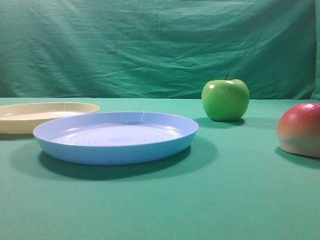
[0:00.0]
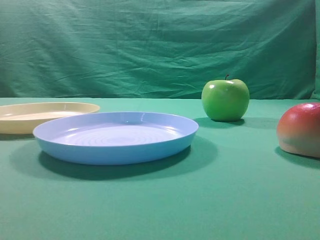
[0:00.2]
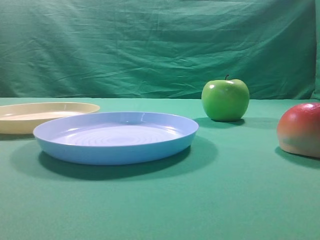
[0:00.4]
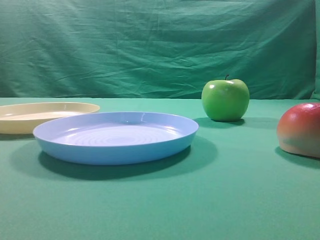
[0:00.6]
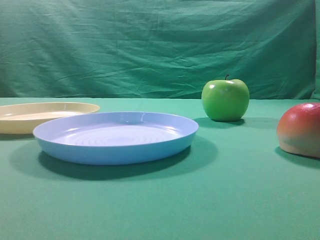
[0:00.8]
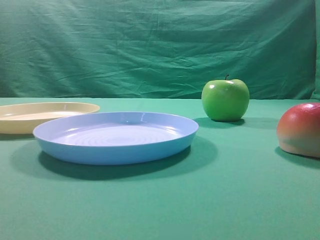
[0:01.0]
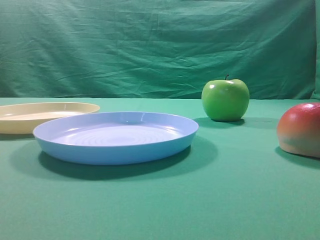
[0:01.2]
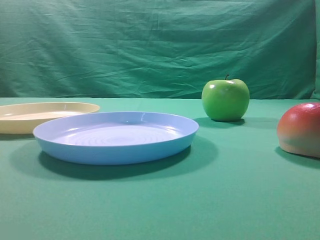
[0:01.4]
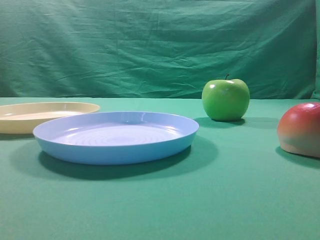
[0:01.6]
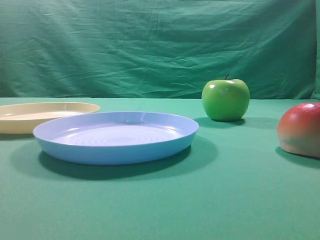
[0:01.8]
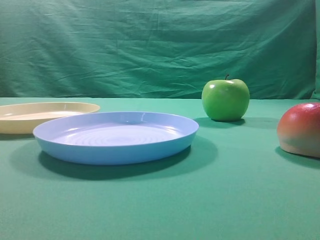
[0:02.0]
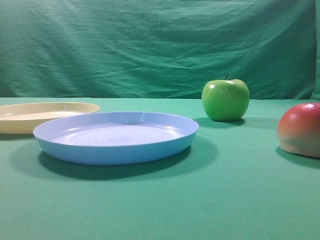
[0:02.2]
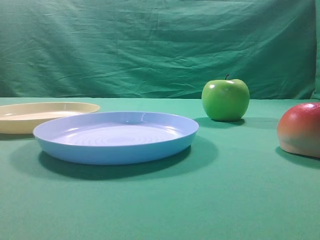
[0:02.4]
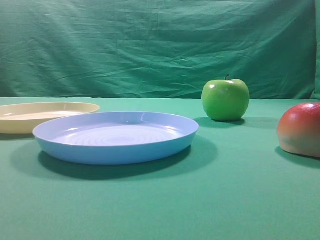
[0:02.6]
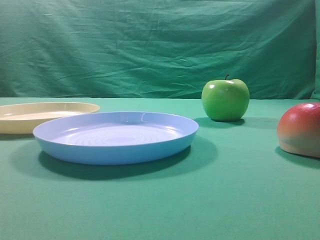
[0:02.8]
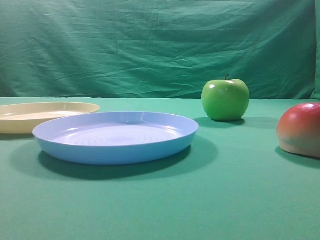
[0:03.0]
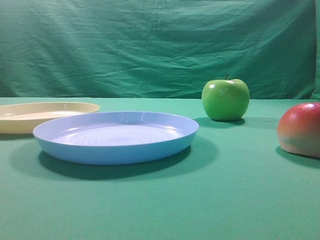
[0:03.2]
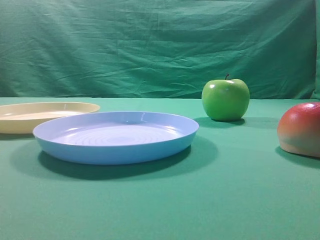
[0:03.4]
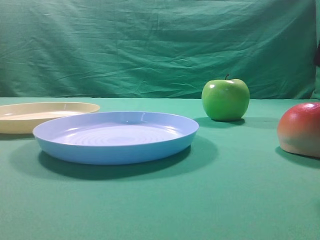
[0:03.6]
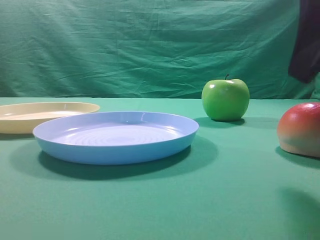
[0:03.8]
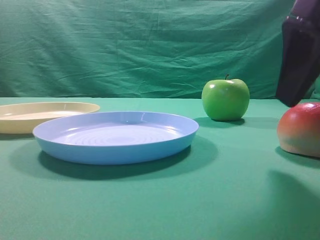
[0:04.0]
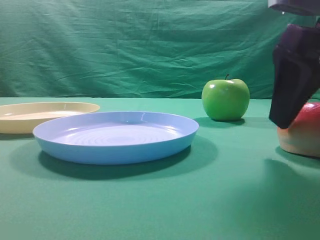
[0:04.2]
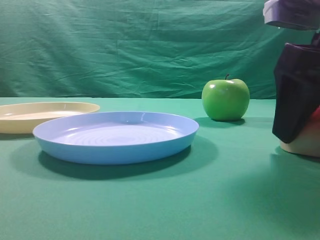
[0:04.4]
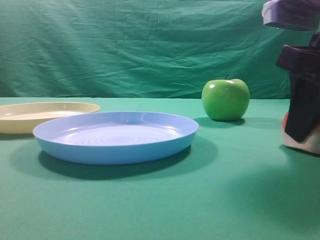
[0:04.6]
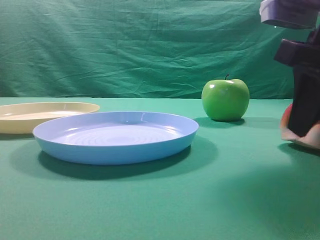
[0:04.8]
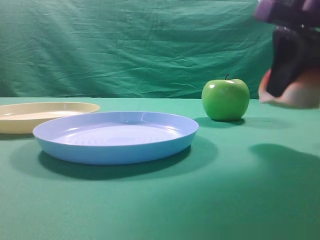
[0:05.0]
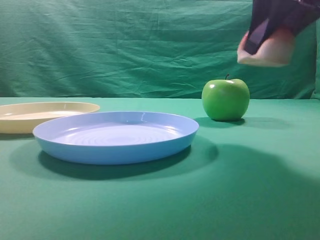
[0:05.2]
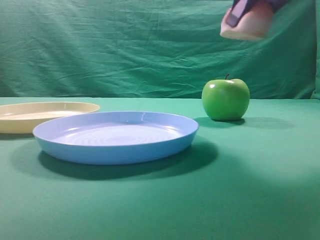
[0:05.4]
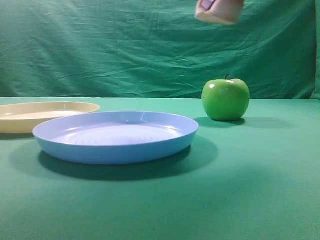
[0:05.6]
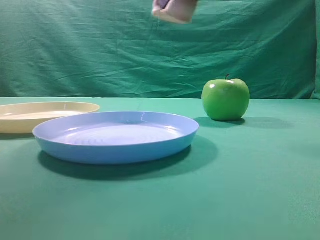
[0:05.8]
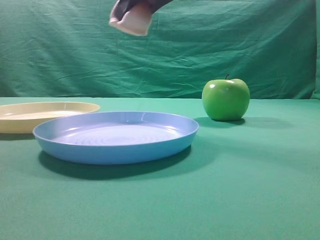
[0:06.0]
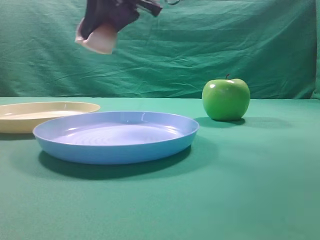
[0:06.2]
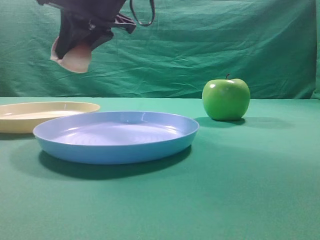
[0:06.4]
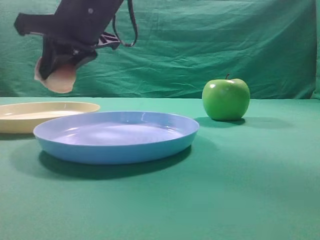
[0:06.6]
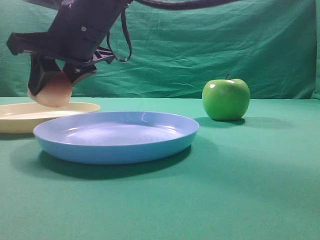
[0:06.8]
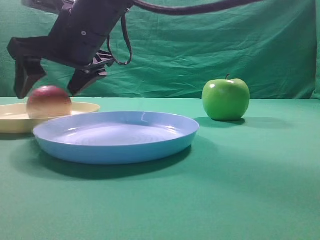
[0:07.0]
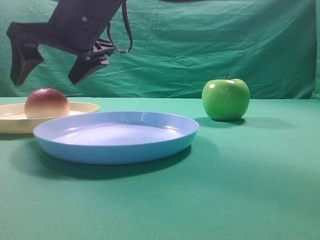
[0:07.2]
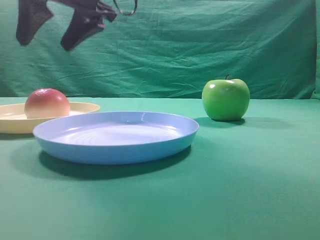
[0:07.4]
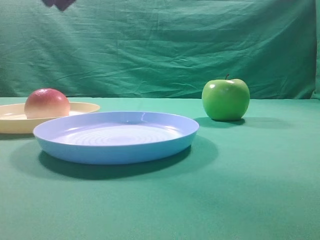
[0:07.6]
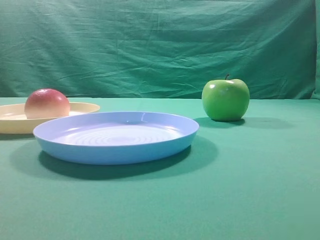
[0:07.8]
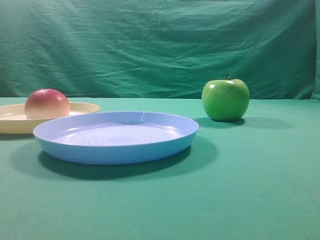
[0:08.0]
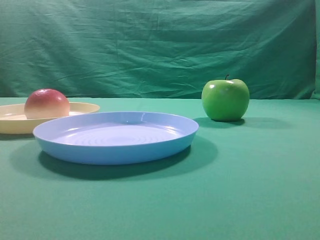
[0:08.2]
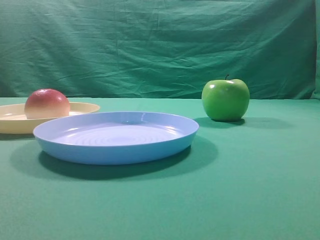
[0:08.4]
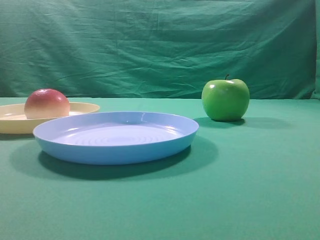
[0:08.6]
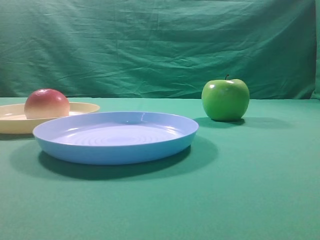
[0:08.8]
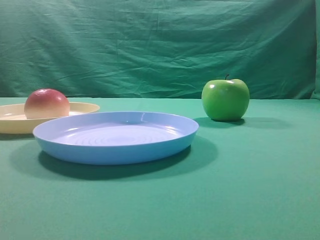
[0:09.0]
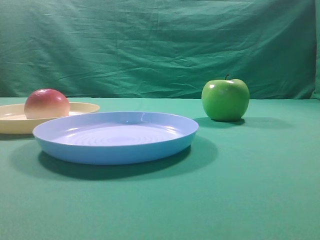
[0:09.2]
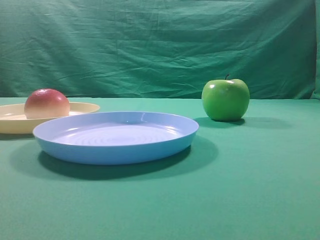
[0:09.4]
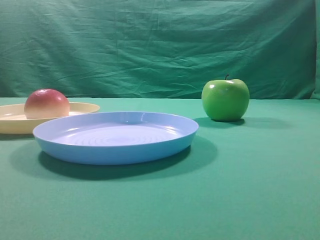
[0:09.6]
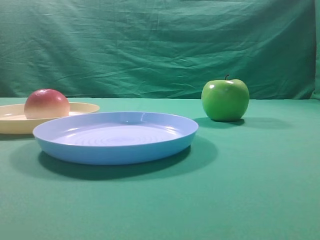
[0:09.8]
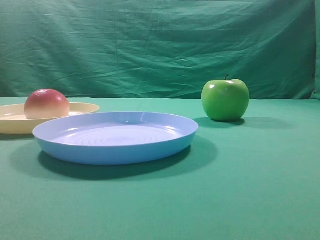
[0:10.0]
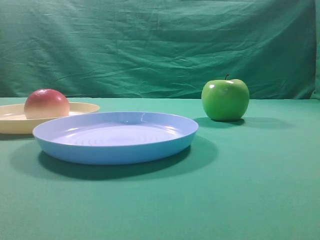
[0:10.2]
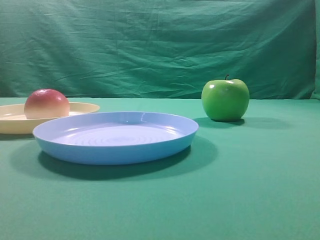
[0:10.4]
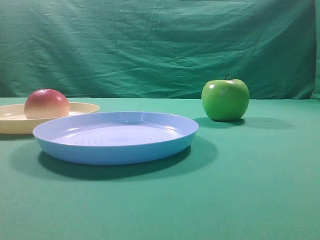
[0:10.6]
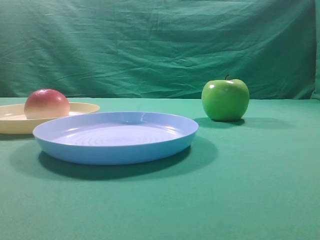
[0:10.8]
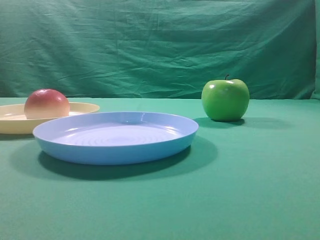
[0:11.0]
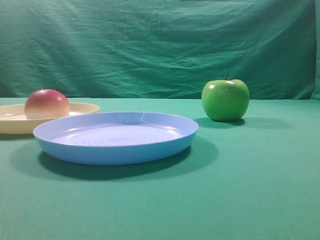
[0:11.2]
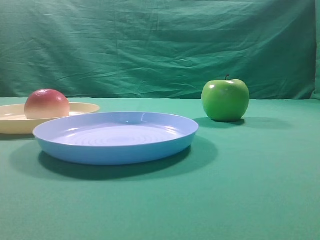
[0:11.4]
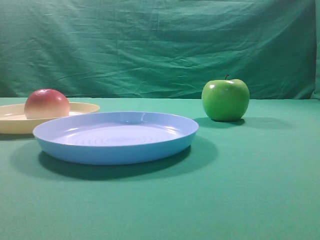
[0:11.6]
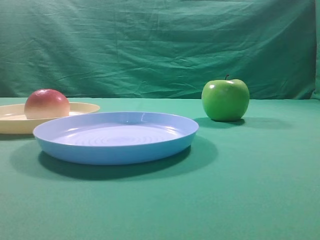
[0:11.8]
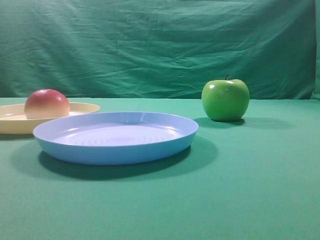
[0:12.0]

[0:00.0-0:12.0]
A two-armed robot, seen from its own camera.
Step, 0:05.2 to 0:07.2: Place the picked object on the yellow plate.

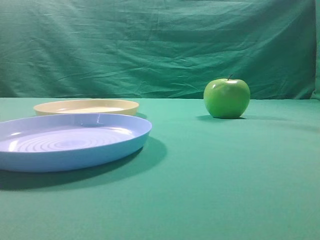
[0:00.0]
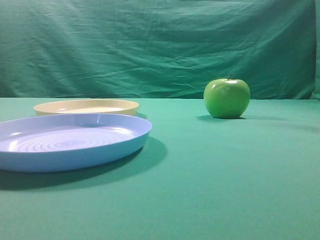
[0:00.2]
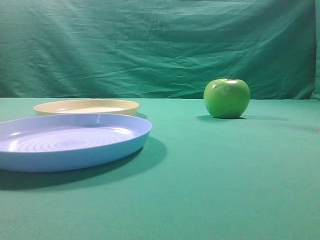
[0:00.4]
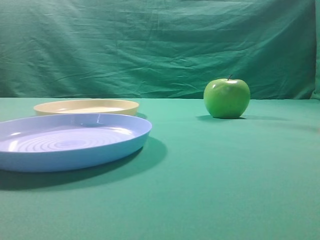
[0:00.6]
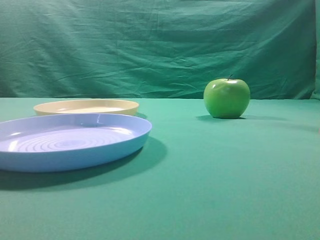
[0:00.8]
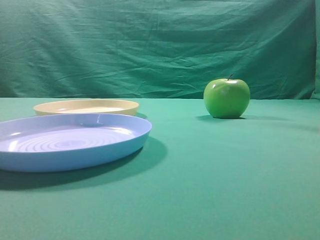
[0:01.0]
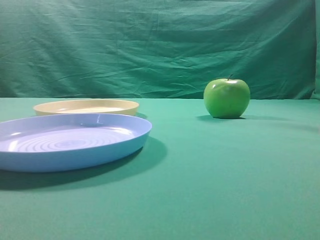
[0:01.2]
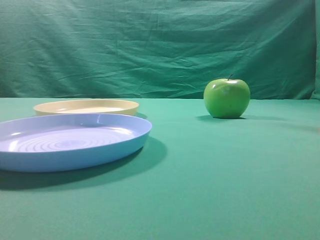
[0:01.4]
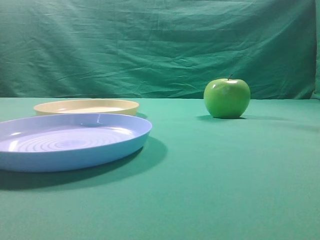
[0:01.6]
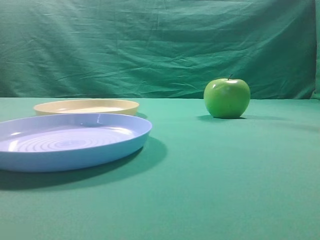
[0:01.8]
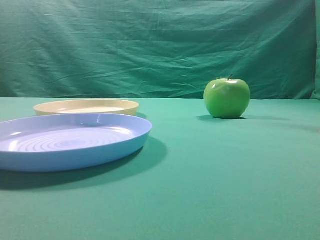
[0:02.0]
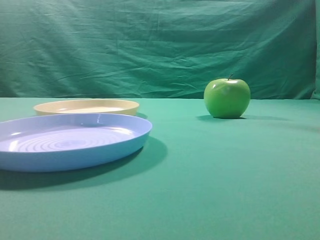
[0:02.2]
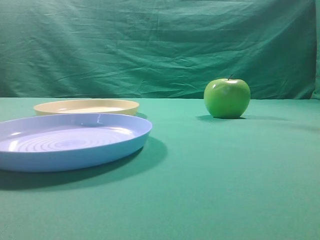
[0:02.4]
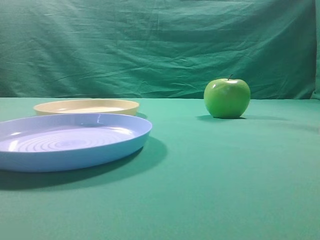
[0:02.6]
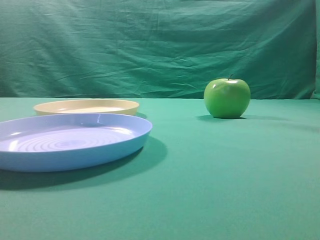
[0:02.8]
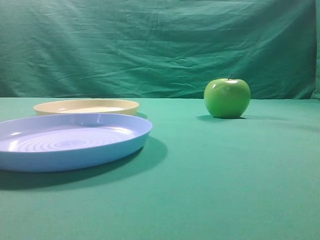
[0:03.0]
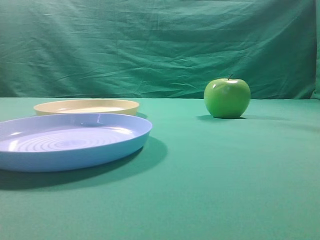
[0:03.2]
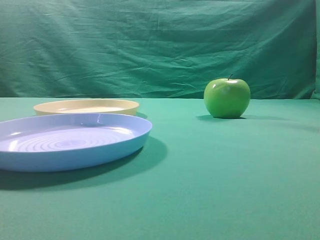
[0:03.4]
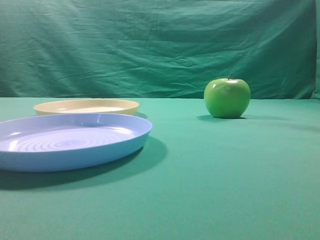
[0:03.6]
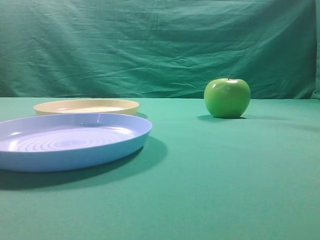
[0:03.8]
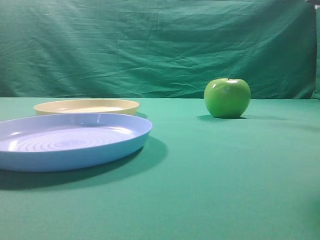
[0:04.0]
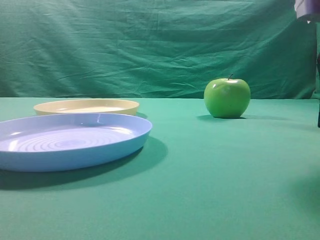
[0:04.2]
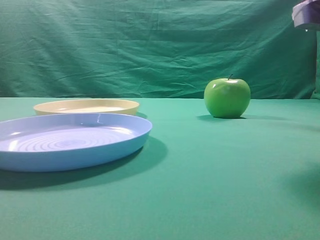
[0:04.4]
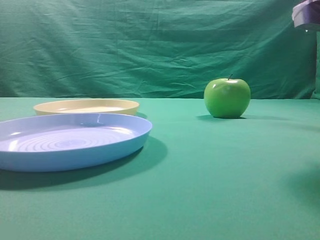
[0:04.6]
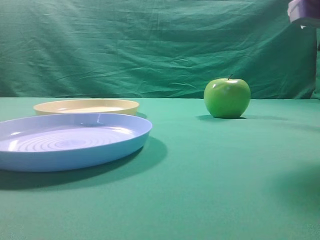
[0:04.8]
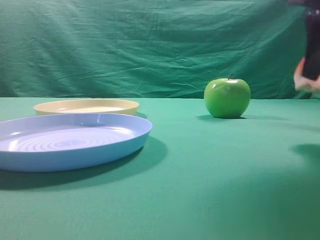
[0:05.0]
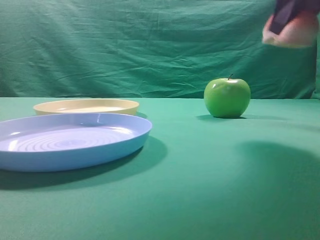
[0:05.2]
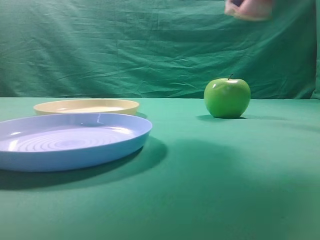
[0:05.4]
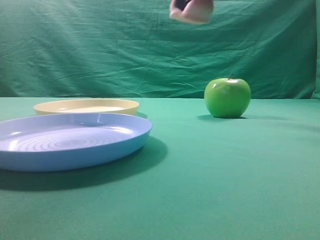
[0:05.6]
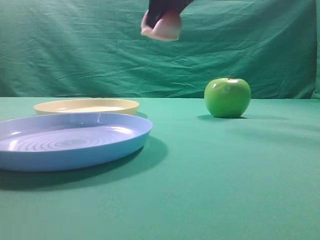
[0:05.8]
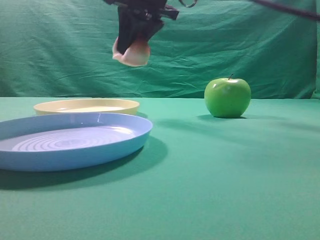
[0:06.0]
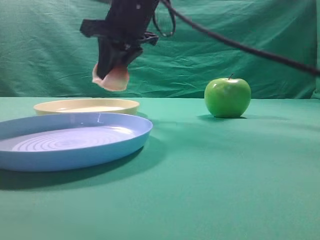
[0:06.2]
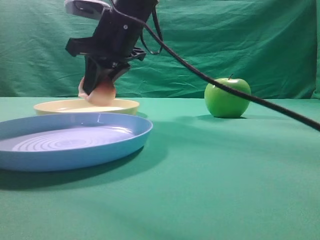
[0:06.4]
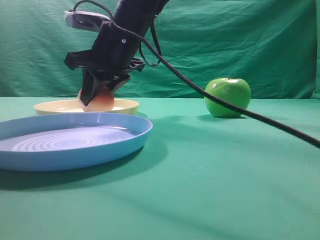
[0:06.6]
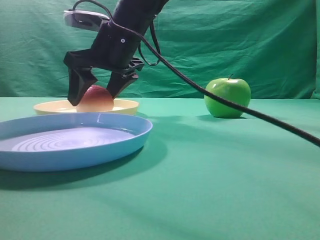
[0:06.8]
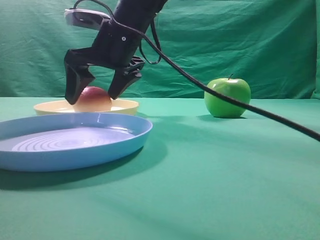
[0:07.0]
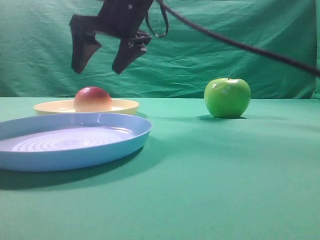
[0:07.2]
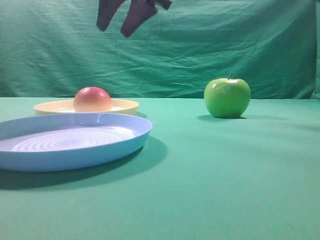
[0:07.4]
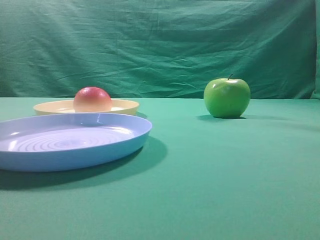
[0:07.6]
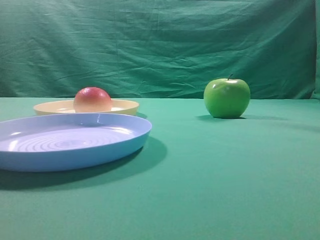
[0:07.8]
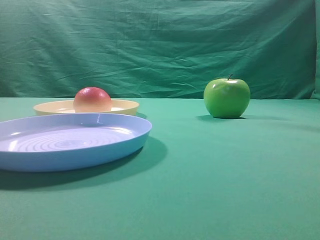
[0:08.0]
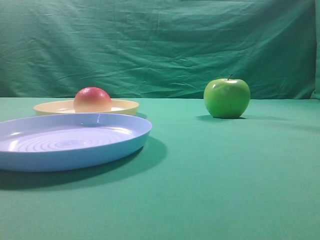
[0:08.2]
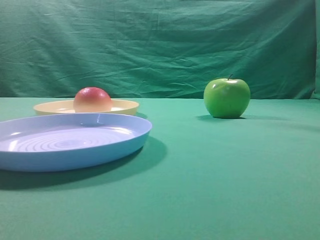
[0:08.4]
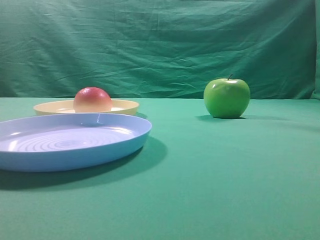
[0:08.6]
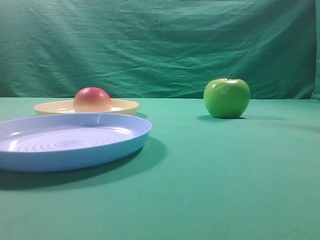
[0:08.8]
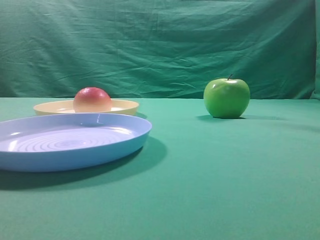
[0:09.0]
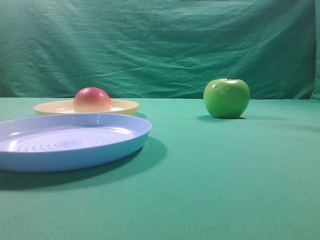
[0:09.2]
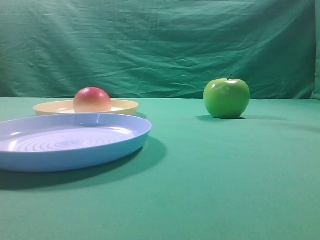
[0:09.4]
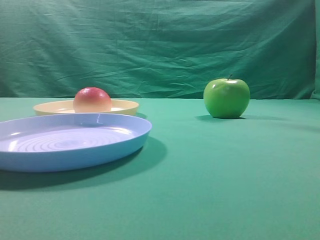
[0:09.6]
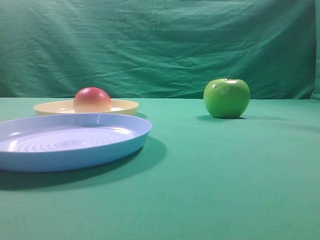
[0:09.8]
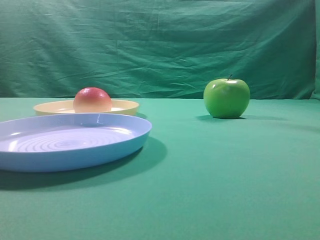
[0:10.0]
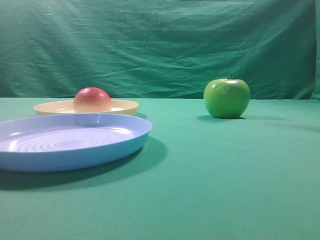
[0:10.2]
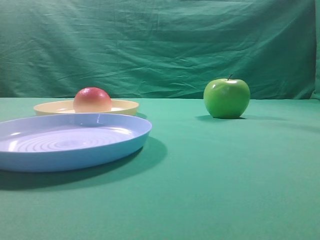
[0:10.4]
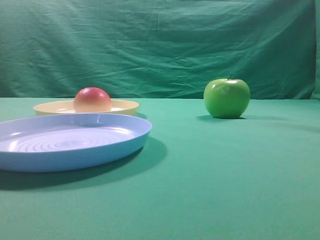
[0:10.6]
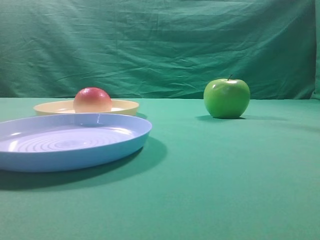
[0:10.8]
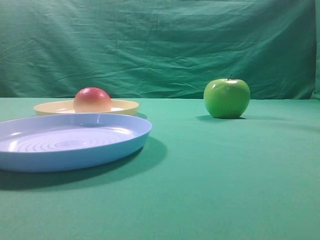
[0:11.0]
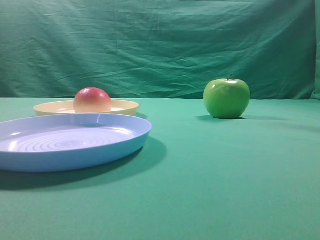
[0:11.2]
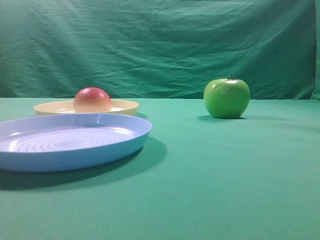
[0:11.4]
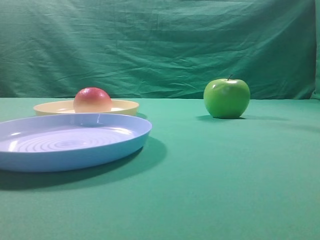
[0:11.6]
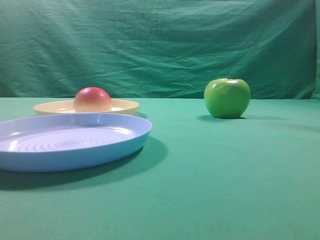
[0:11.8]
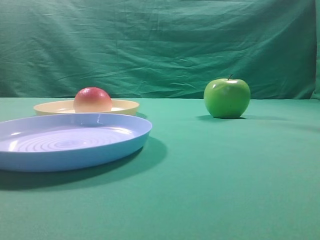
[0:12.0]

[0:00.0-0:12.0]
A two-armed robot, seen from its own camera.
Step, 0:05.0 to 0:07.0: Place the picked object on the yellow plate.
